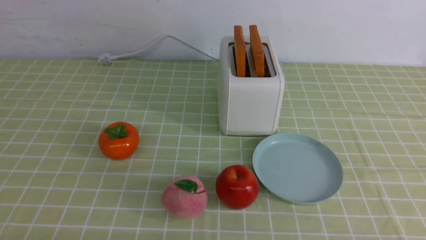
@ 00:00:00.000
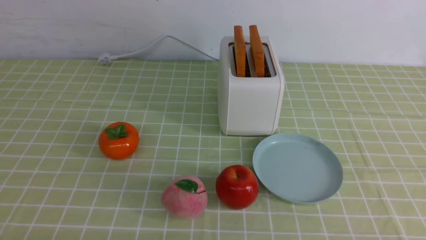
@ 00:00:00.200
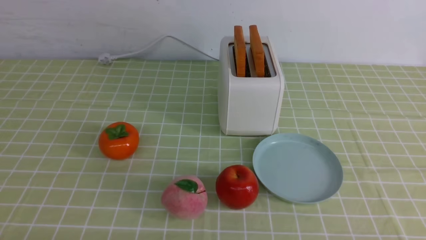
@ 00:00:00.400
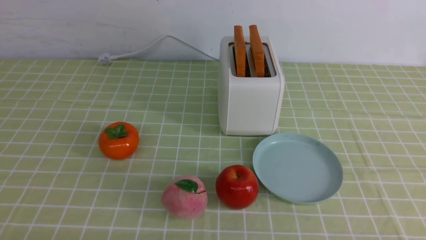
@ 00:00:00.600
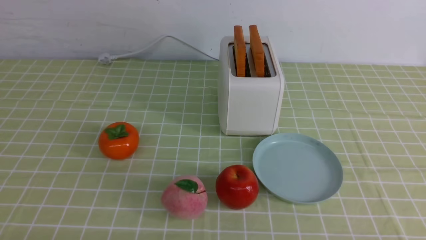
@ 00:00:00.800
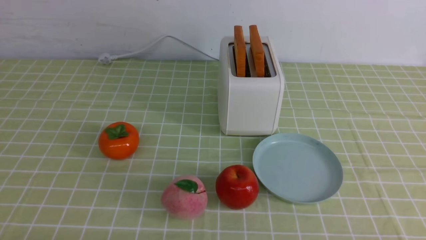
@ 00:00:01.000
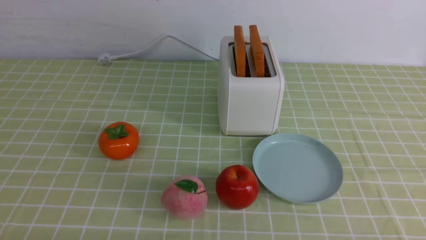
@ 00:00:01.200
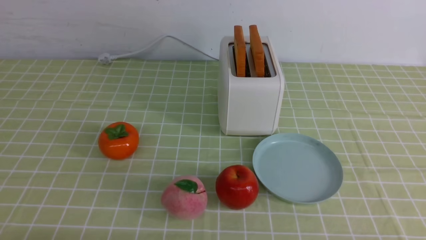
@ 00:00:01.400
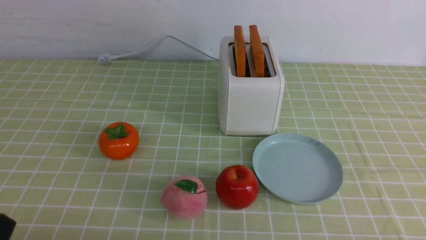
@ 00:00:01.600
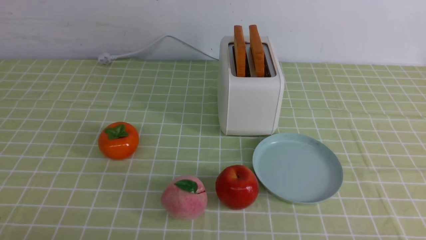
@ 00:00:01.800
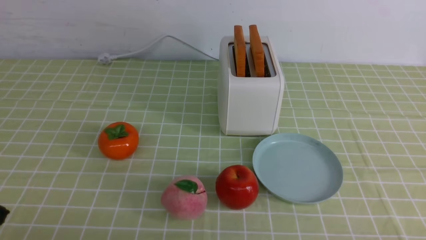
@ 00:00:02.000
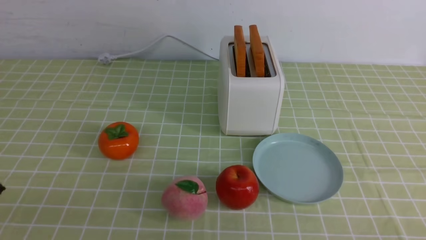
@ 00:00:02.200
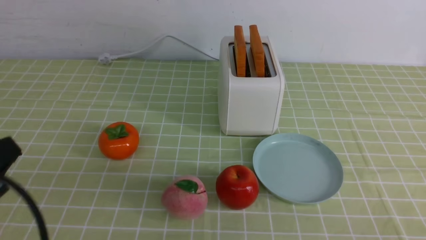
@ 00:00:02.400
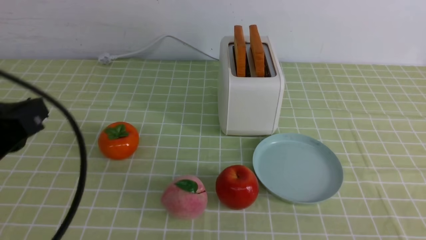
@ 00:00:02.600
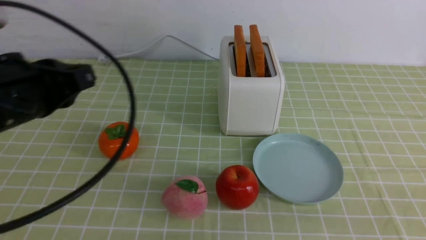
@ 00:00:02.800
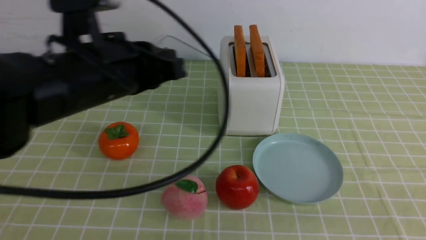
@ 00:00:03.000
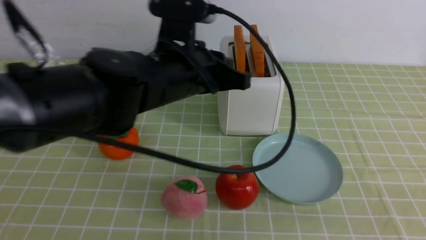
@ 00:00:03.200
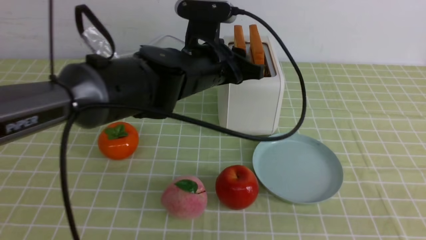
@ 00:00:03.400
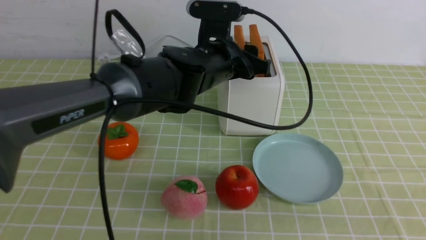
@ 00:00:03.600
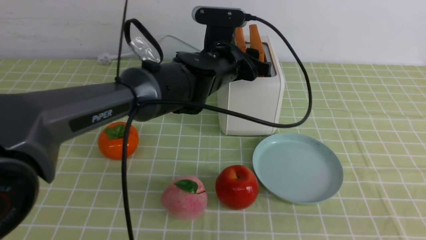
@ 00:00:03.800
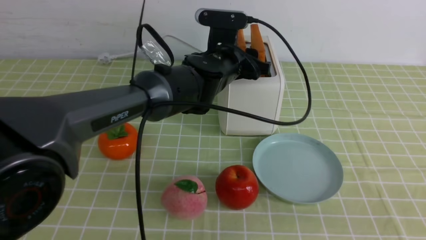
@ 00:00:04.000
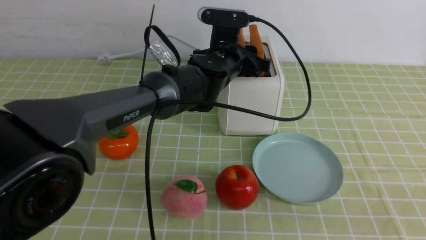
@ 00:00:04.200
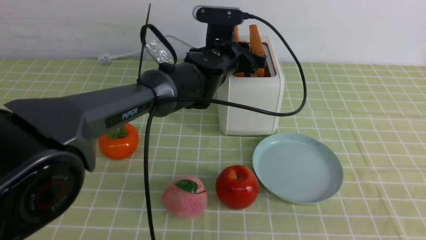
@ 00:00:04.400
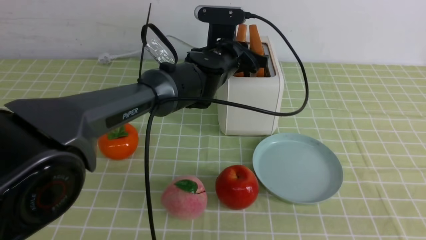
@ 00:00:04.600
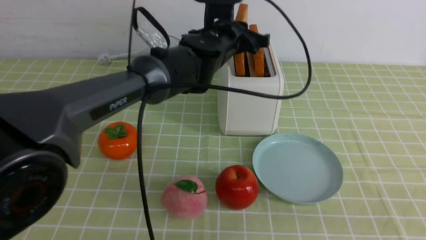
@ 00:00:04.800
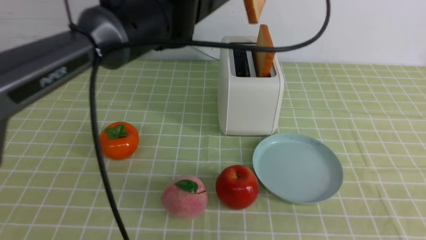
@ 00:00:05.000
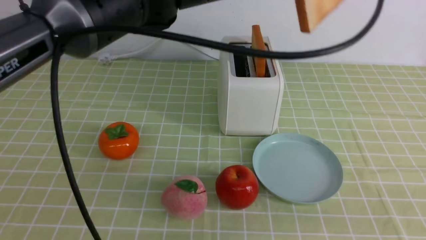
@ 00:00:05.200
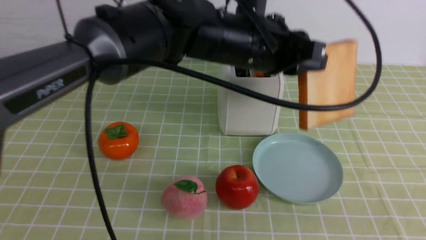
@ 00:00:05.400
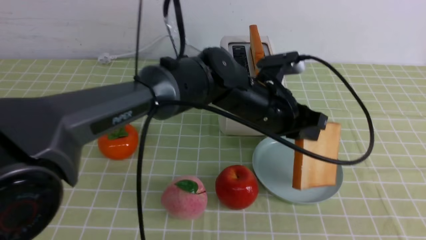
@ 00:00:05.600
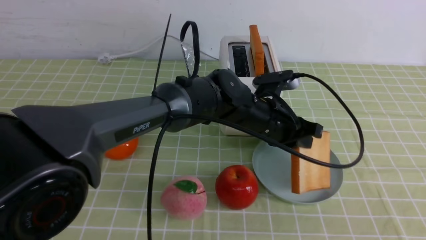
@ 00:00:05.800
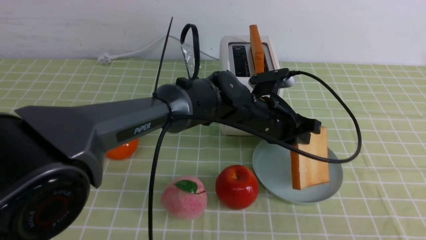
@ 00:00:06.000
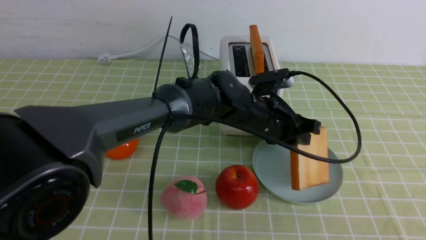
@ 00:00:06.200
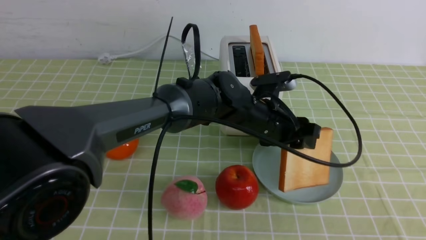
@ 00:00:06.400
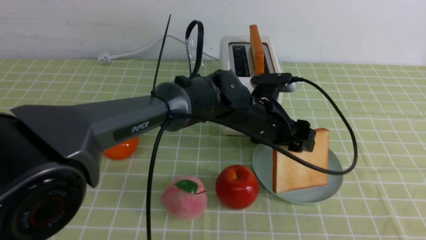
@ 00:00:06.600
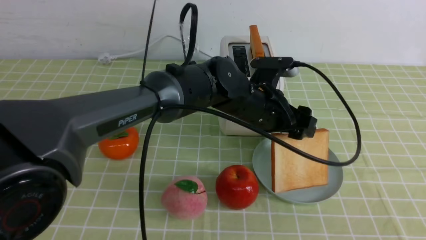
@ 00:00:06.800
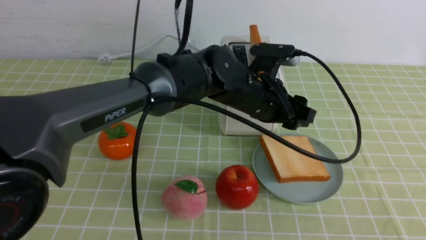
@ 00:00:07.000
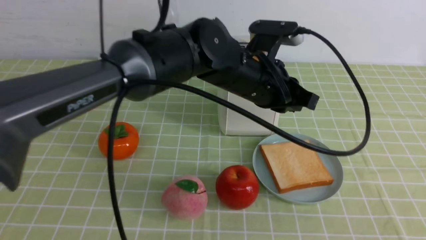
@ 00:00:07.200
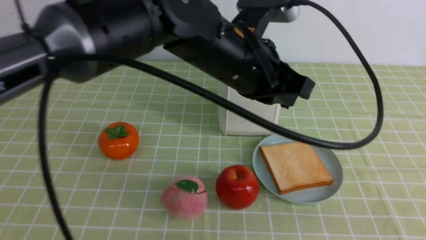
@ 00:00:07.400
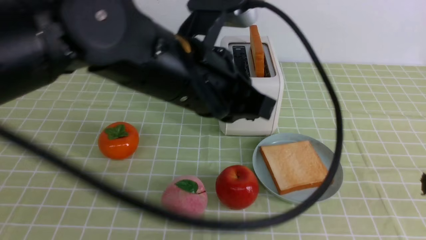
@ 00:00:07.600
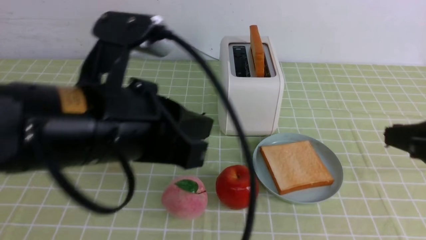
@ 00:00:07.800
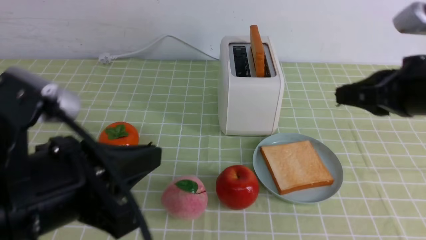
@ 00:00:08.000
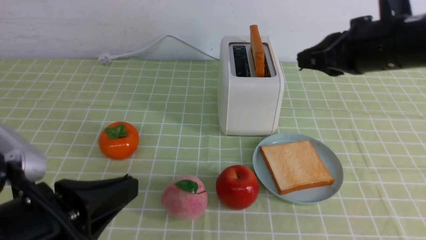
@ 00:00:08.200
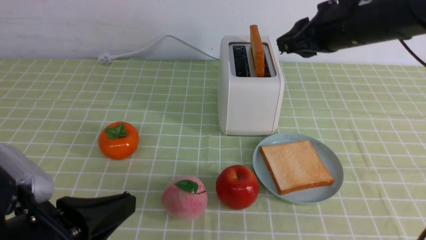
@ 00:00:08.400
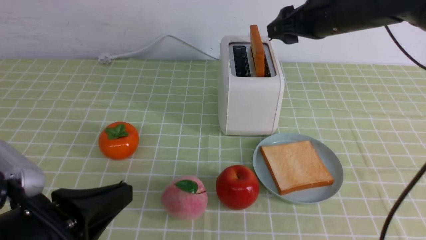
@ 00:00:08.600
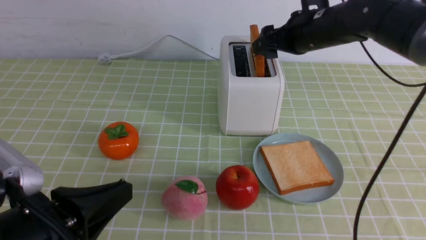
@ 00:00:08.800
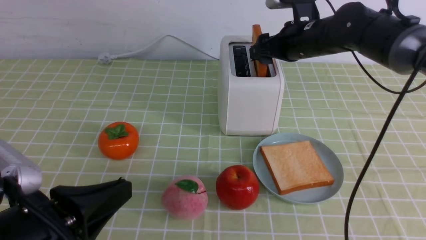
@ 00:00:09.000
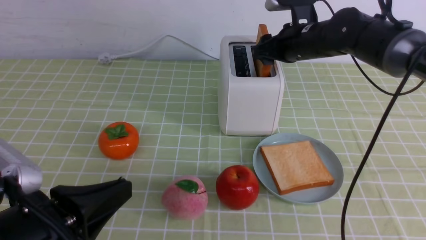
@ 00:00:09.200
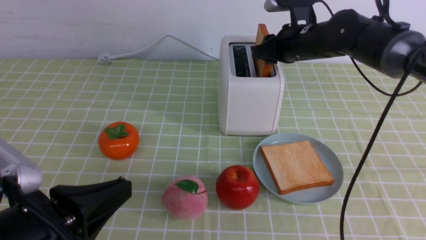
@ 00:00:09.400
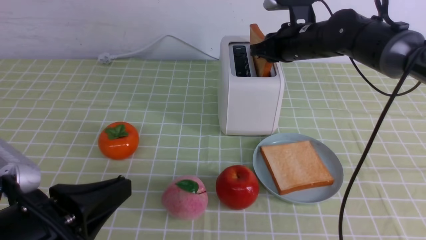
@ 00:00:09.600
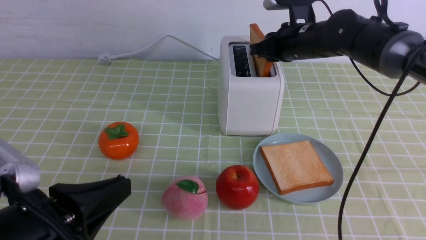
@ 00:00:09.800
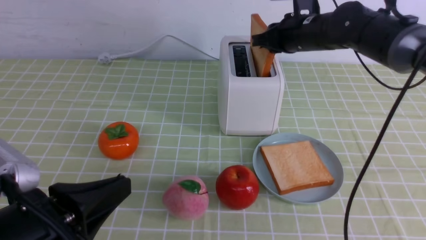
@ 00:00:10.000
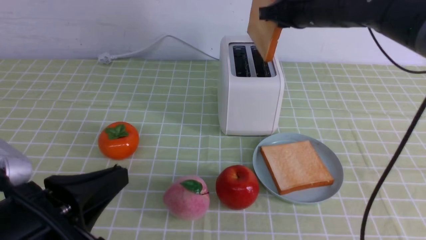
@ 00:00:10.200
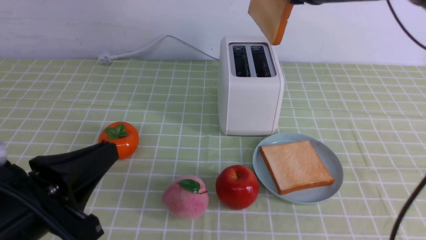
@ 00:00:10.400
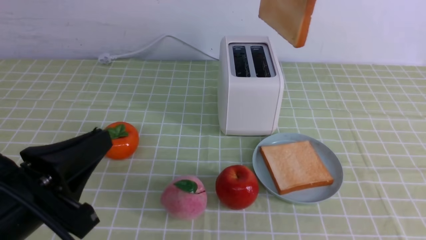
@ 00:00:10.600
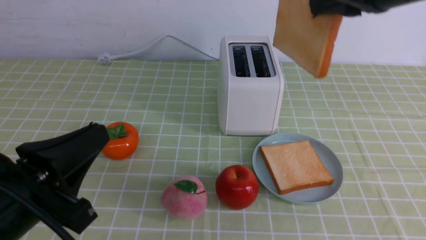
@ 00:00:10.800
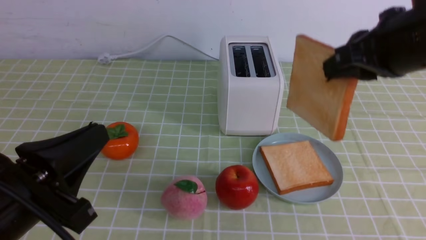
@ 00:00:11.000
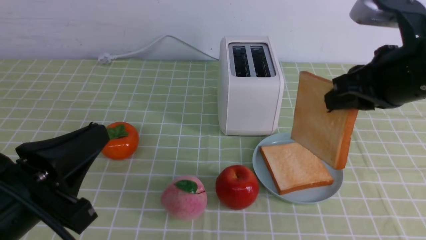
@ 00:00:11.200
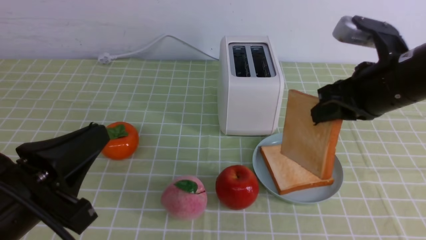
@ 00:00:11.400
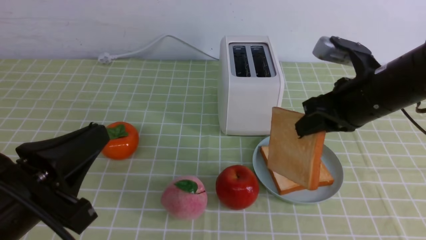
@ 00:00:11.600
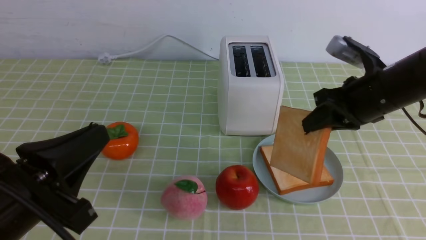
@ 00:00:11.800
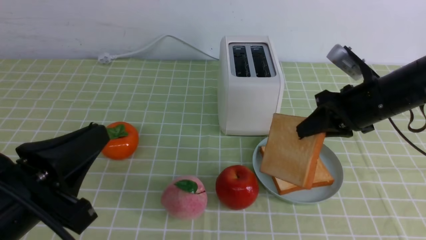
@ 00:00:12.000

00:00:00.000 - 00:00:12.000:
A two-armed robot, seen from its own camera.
Task of the whole recording: take toasted bread from bread machine on green coffee tablecloth place on plate.
Step, 00:00:00.000 - 00:00:04.800: use the left arm to take out a slice of bread.
Step, 00:00:05.000 - 00:00:07.600: use the left arm to put a slice of bread into the empty plate.
Step, 00:00:08.000 - 00:00:10.400: use the right arm to take out a slice of bread.
00:00:01.600 - 00:00:03.000: The right gripper shifts about 10 cm upward; the left gripper goes roughly 30 cm forward, upward and to the right, and closes up.
00:00:03.000 - 00:00:04.400: The left gripper is displaced forward, to the right and downward by about 25 cm, and opens.
00:00:04.400 - 00:00:06.000: The left gripper is displaced backward and to the right by about 10 cm, and moves roughly 15 cm upward and comes back.
00:00:06.000 - 00:00:07.600: The right gripper travels forward by about 5 cm, while the left gripper goes about 25 cm upward, backward and to the left, and opens and closes again.
00:00:07.600 - 00:00:09.000: The right gripper heads forward, covering approximately 35 cm, and opens its fingers. Meanwhile the left gripper heads to the left, backward and downward, covering roughly 20 cm.
00:00:09.000 - 00:00:10.400: The right gripper is displaced upward and backward by about 15 cm, and closes.
00:00:10.400 - 00:00:12.000: The right gripper travels downward by roughly 15 cm.

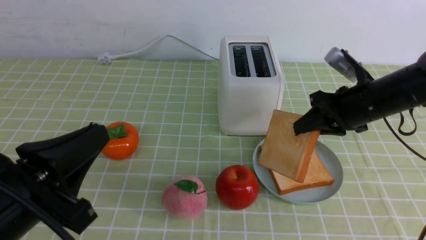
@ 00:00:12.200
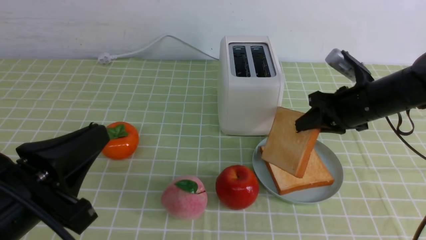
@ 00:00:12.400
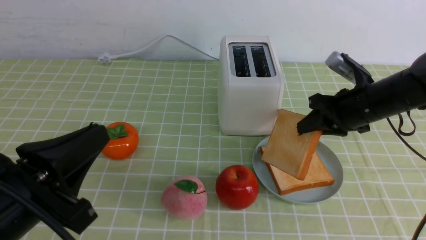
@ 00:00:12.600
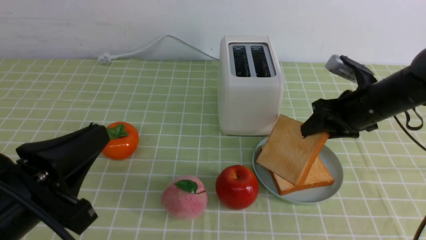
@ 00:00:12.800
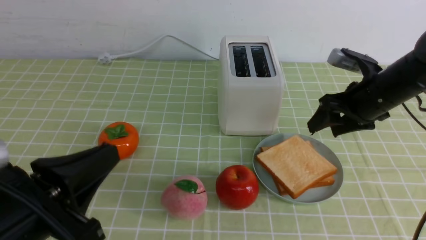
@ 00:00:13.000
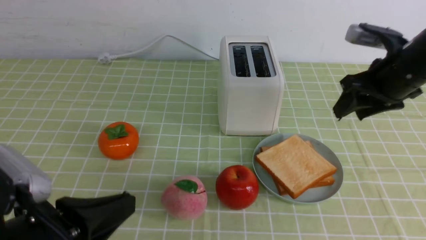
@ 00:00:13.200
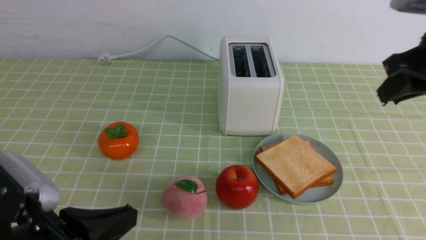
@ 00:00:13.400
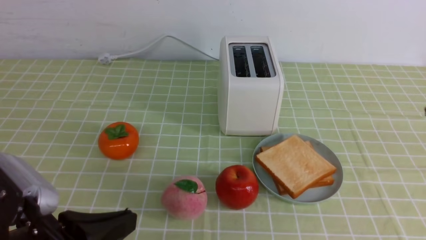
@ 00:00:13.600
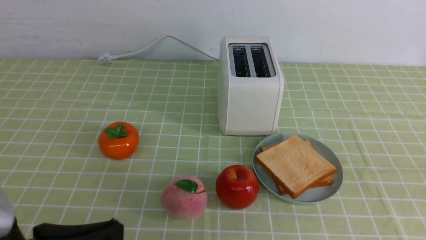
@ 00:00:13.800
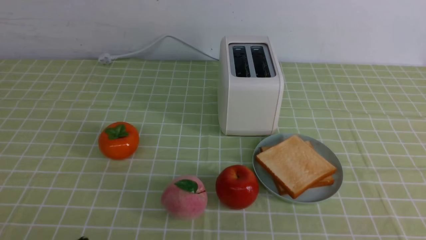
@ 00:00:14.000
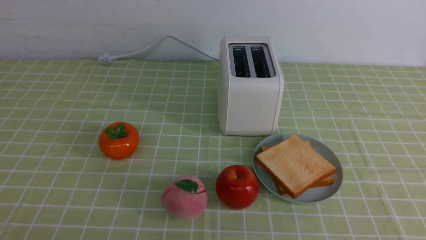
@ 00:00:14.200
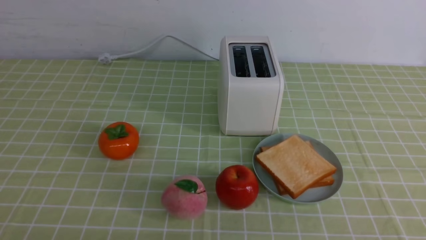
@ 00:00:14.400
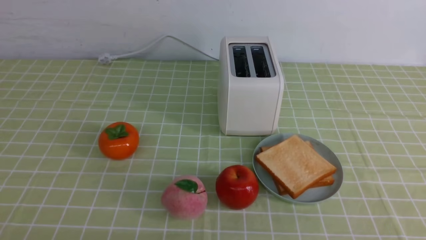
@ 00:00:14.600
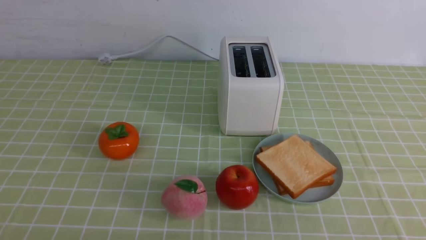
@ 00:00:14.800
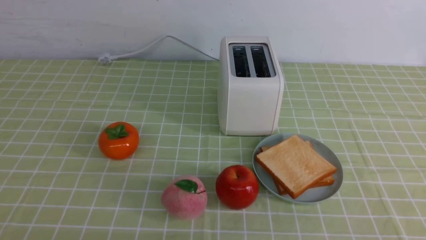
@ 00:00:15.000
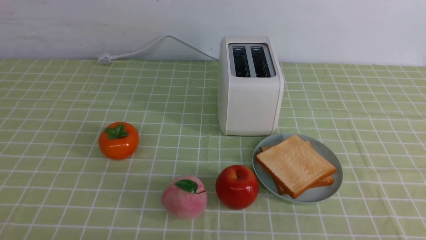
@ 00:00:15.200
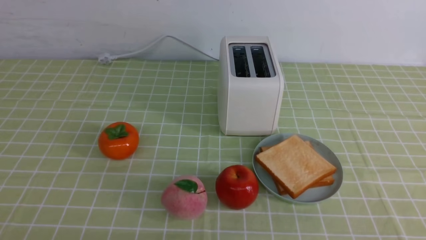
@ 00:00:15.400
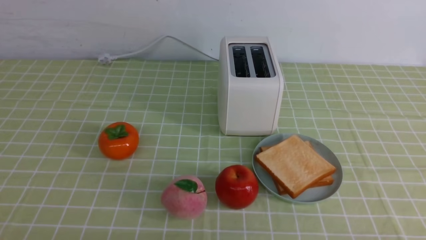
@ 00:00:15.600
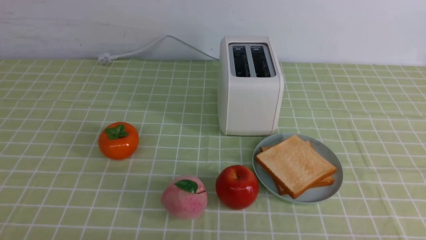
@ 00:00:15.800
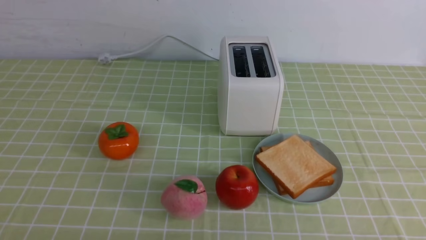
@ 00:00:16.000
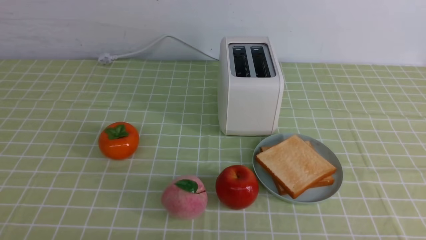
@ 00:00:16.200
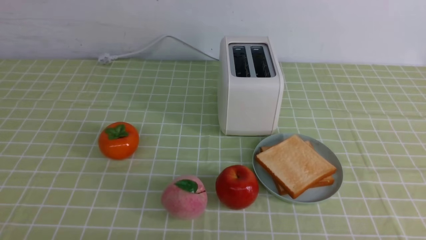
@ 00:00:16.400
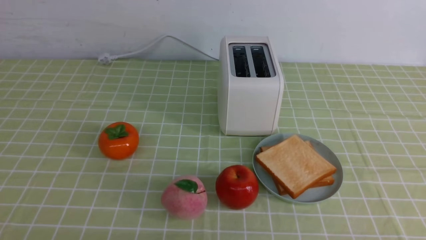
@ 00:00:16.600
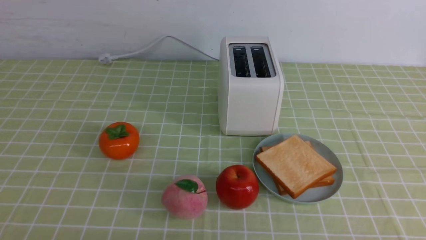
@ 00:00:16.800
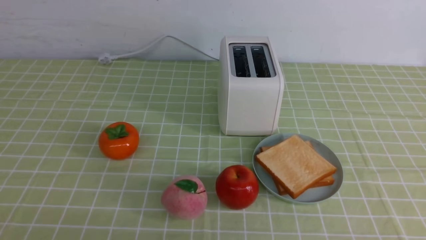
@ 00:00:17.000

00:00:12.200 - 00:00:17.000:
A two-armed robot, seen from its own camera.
Task of the whole recording: take toasted bread from bread machine on green coffee tablecloth place on plate.
00:00:12.200 - 00:00:13.800: The right gripper shifts roughly 30 cm backward and upward, and opens, then closes again.
00:00:13.800 - 00:00:15.400: The left gripper changes place by about 5 cm.
